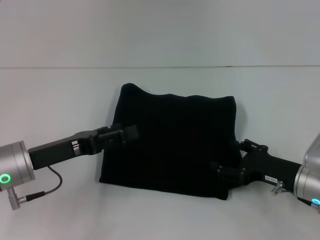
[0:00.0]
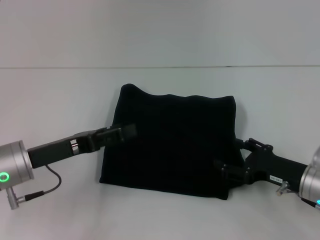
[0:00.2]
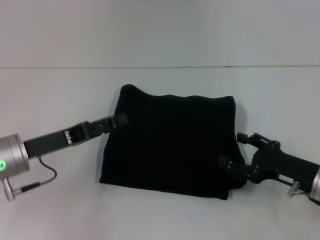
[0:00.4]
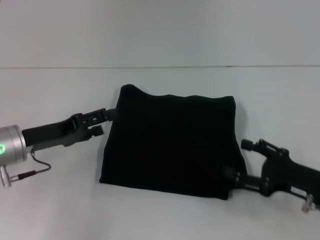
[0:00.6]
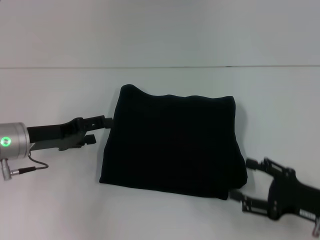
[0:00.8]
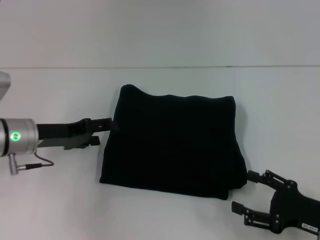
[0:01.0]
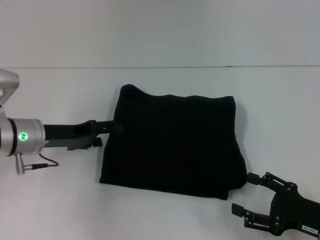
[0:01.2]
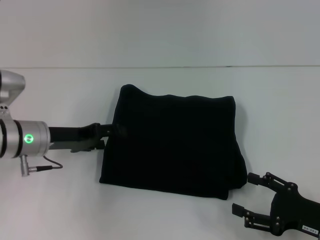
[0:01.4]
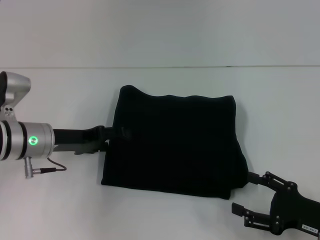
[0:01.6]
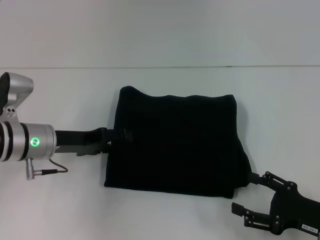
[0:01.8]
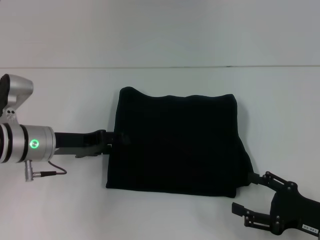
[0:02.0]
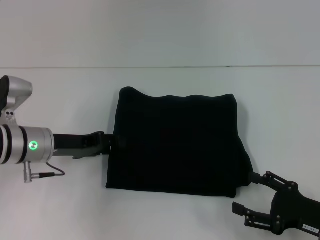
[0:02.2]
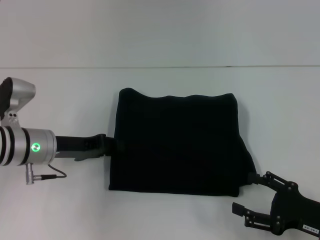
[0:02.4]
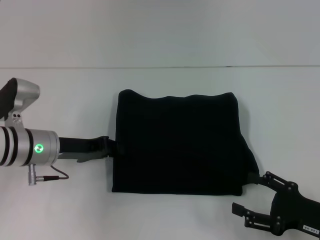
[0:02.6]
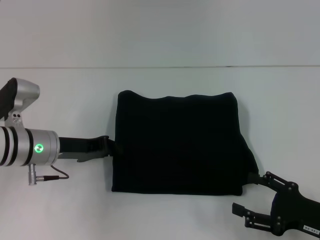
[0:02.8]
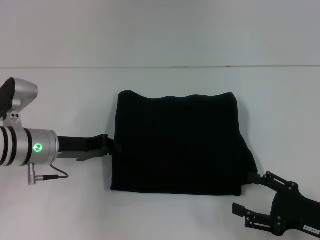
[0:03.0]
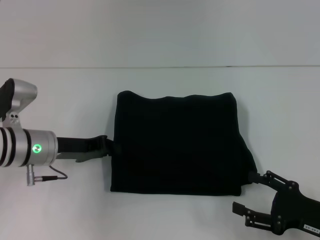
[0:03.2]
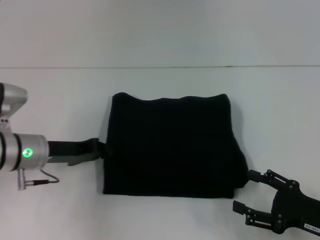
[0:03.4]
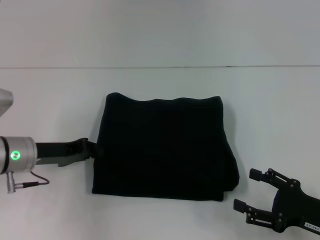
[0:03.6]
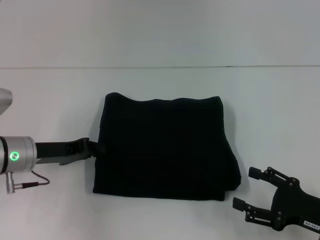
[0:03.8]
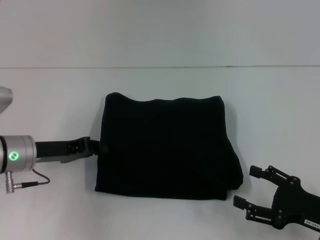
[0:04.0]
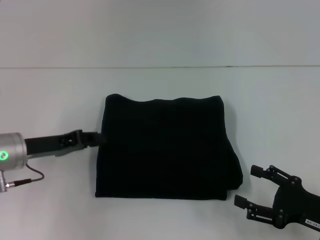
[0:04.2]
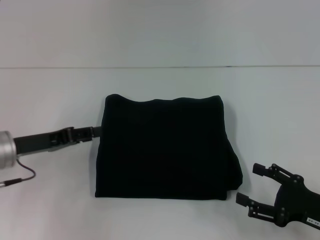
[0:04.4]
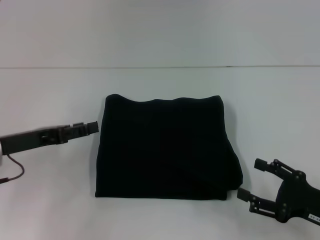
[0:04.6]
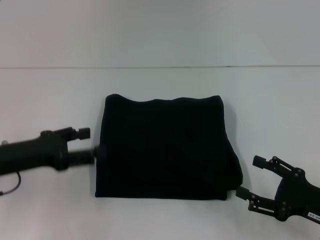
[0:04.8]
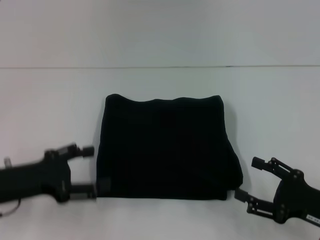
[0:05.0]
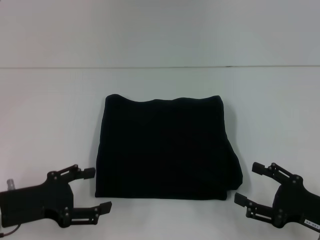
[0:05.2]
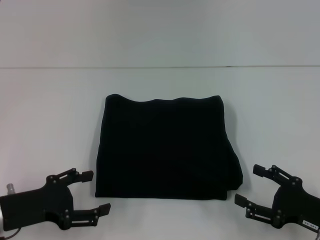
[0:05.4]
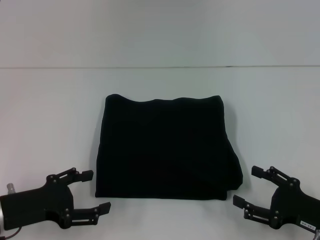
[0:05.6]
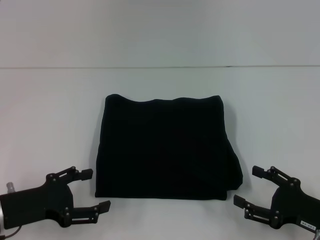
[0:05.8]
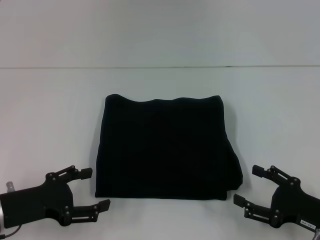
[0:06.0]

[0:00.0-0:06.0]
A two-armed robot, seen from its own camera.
0:00.0 to 0:01.6: The right gripper goes some 10 cm backward. Meanwhile the left gripper moves forward, some 5 cm.
0:01.6 to 0:03.0: The left gripper closes.
0:03.0 to 0:04.4: The left gripper moves to the left, roughly 5 cm.
0:04.4 to 0:06.0: The left gripper heads backward, covering some 10 cm, and opens.
